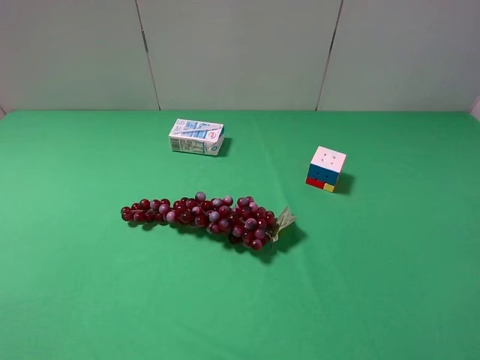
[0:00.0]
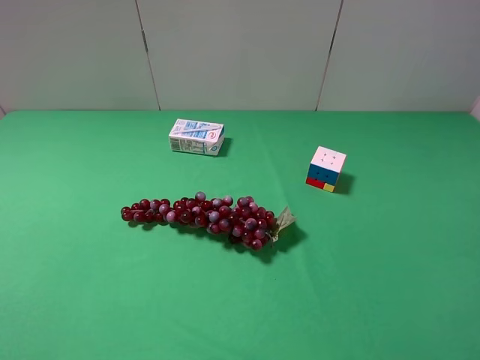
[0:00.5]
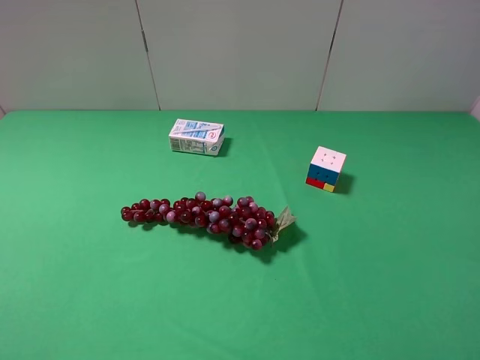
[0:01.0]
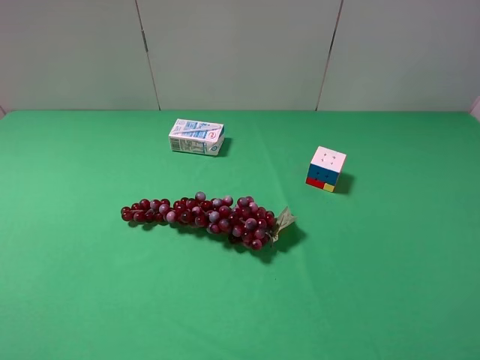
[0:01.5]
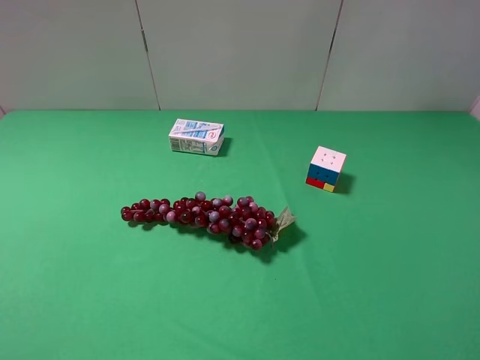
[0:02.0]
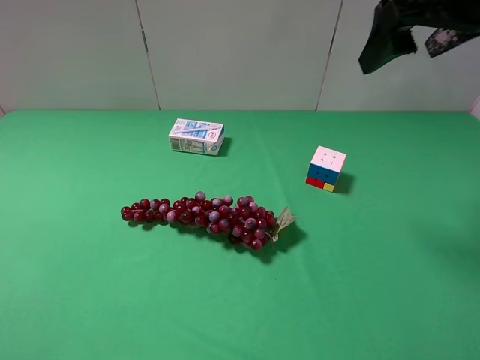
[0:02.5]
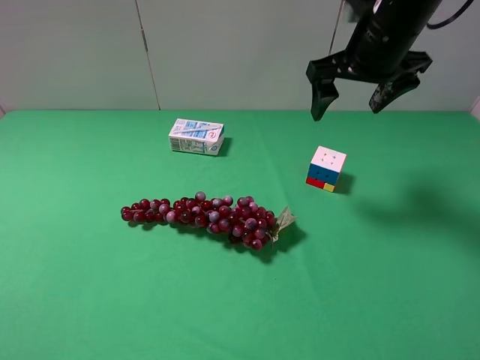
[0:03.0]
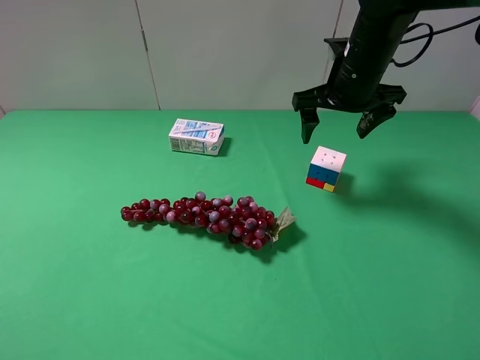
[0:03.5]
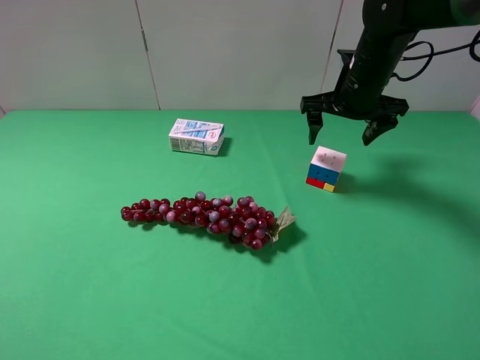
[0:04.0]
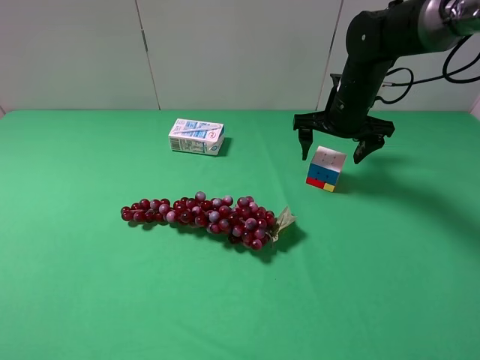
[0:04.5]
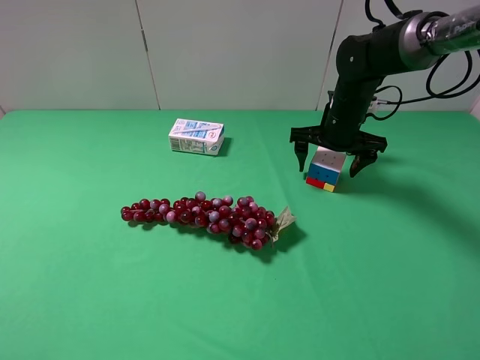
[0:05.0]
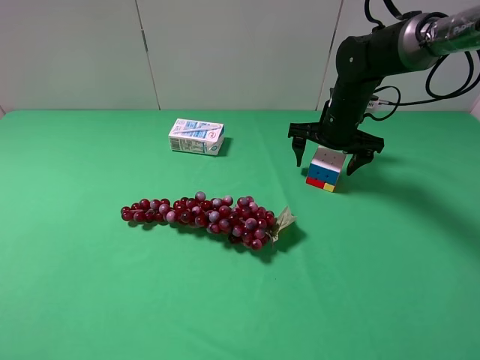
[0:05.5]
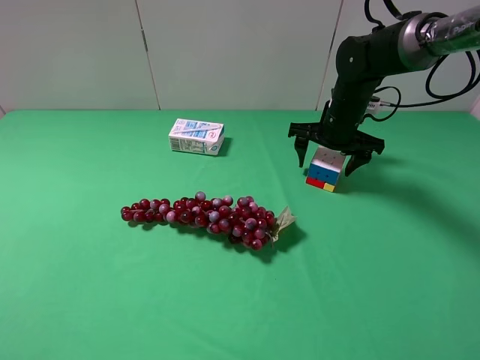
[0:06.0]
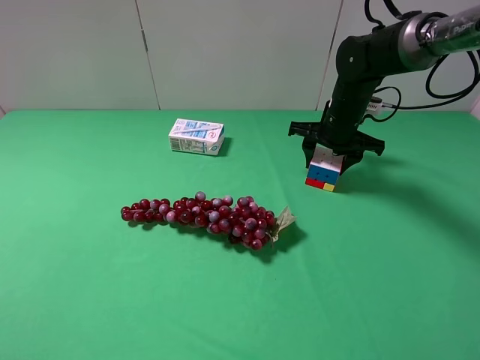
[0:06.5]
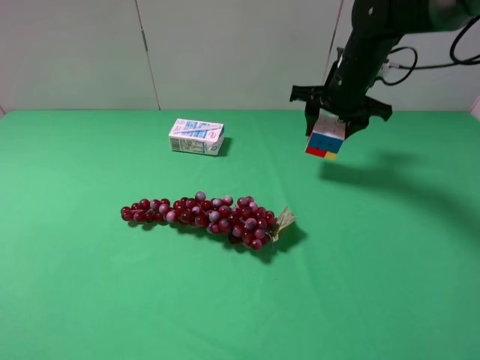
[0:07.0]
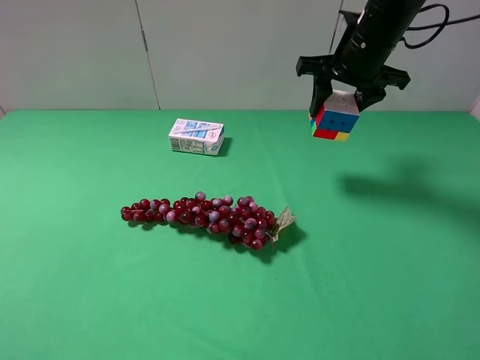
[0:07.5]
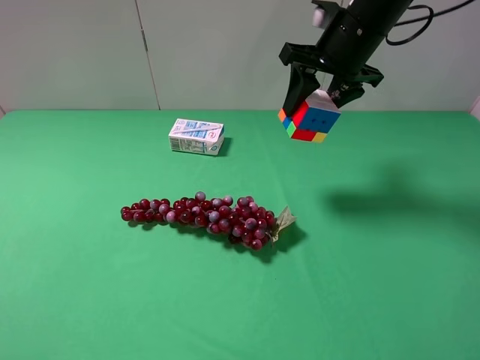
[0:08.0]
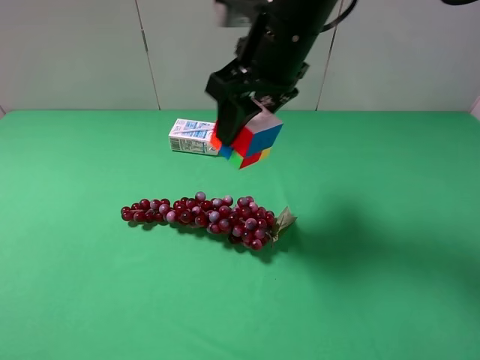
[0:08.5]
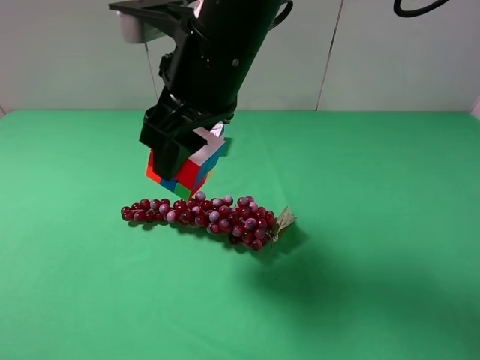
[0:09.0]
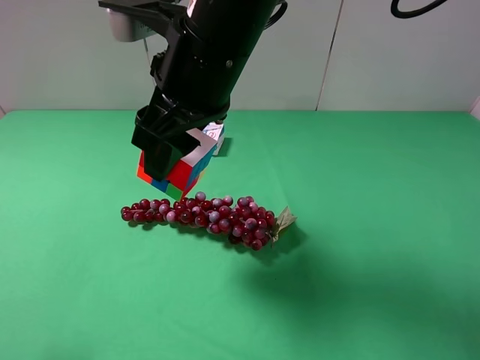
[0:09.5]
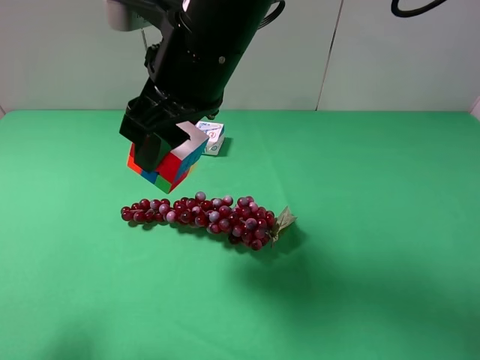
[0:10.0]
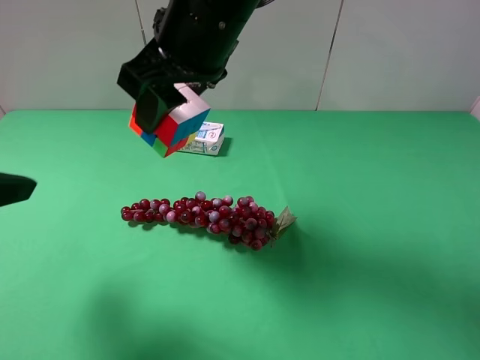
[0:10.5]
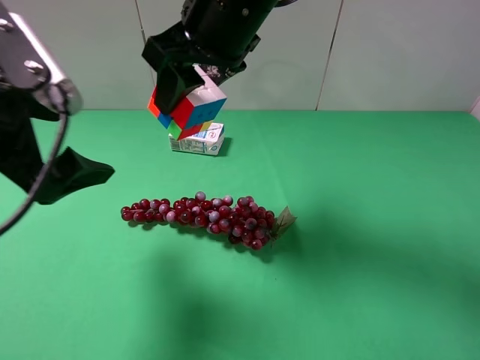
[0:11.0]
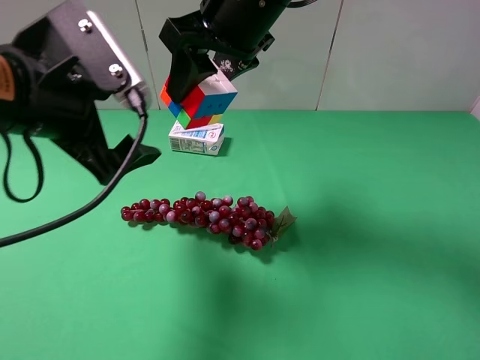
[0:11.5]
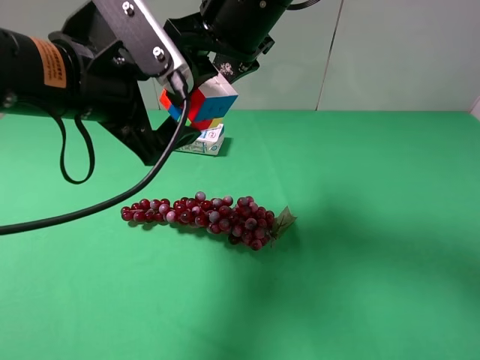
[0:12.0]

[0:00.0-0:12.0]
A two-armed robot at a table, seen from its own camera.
Task of the whole recording: use the right gripper to pick up the item and transfer it from the right gripper to the left gripper.
Step, 0:00.0 to 0:06.0: Use the right gripper to grab the Rubik's Cube on the right side of the table.
0:02.0 to 0:04.0: The right gripper goes approximately 30 cm forward, downward and to the left.
0:04.0 to 0:06.0: The right gripper heads downward, covering approximately 5 cm, and closes up.
0:06.0 to 0:08.0: The right gripper heads upward, covering some 15 cm, and closes.
0:08.0 to 0:10.0: The right gripper goes roughly 20 cm to the left and backward. Meanwhile the left gripper shifts some 10 cm forward.
0:10.0 to 0:12.0: The left gripper travels to the right and forward by some 20 cm, while the right gripper travels forward by roughly 5 cm.

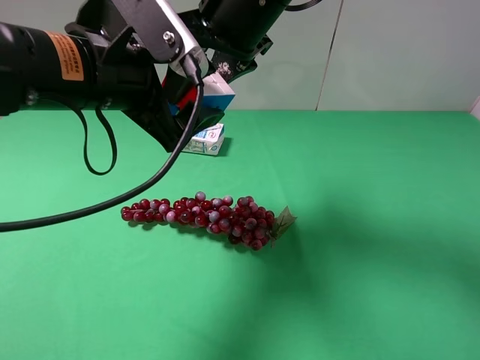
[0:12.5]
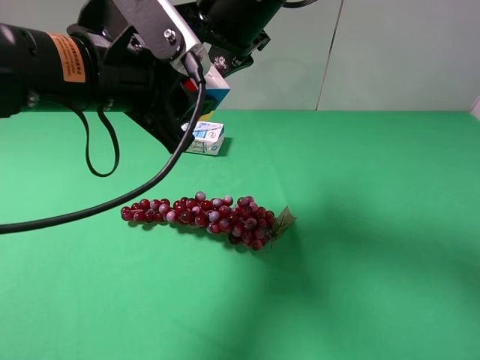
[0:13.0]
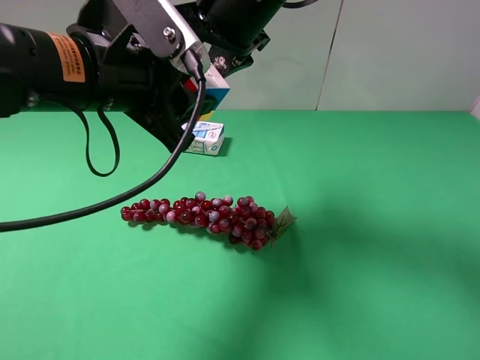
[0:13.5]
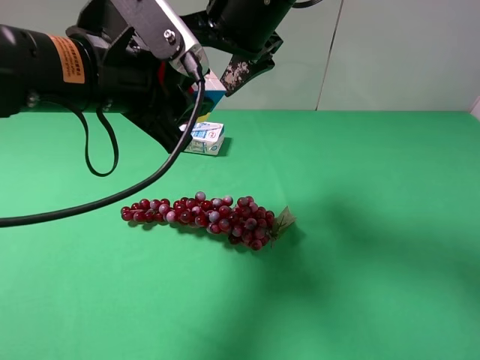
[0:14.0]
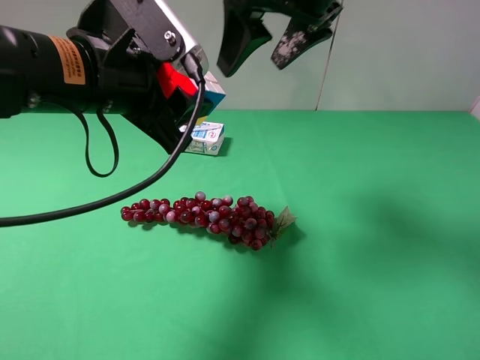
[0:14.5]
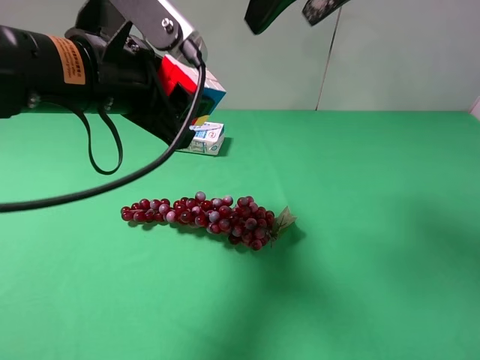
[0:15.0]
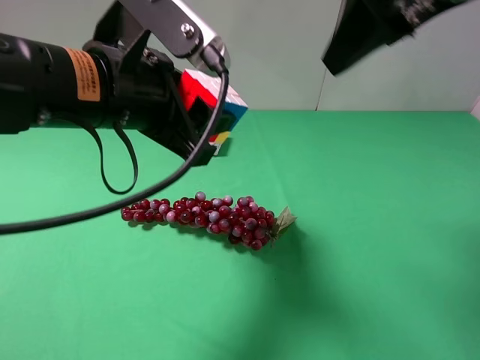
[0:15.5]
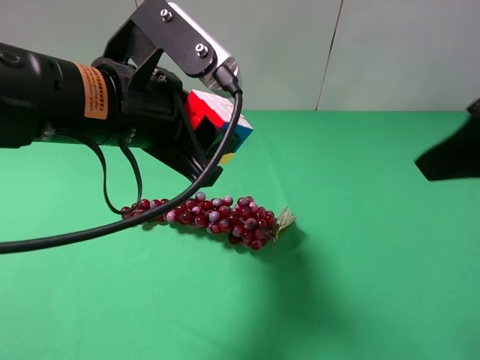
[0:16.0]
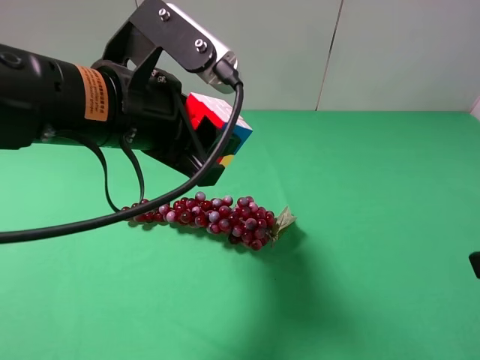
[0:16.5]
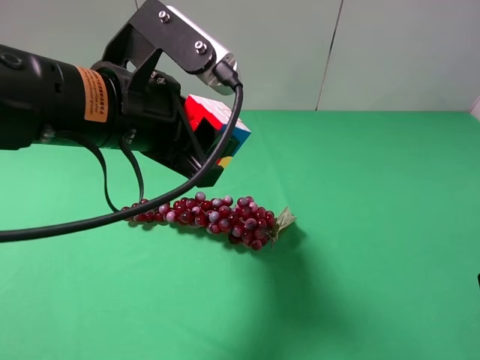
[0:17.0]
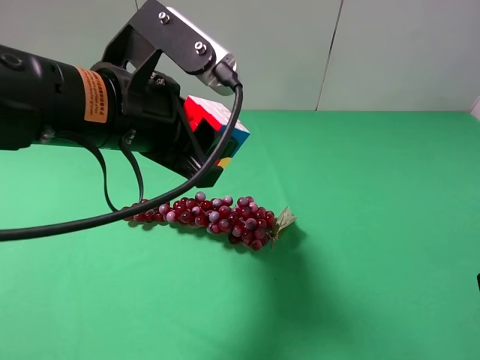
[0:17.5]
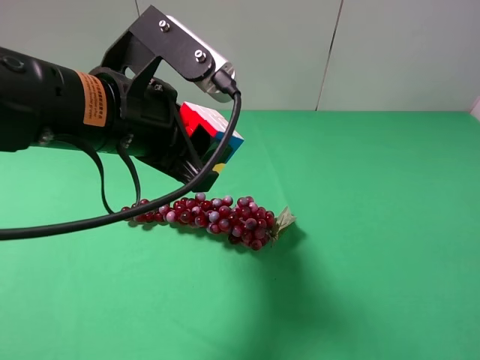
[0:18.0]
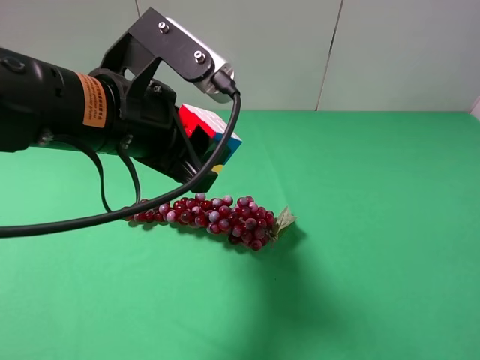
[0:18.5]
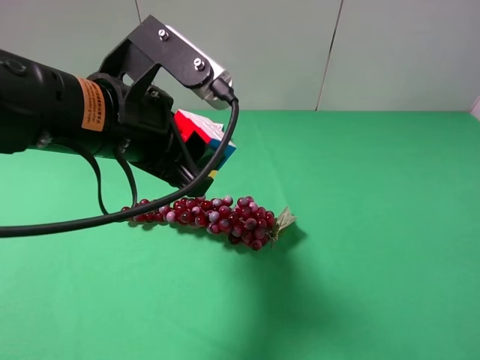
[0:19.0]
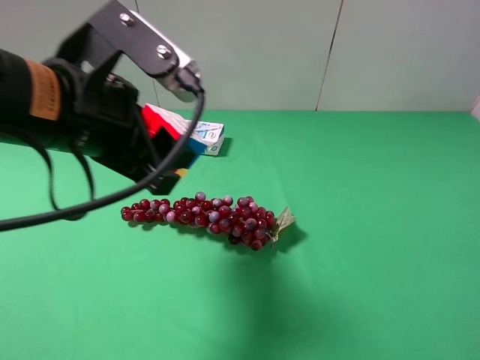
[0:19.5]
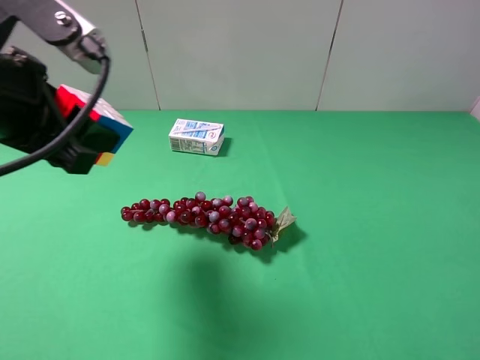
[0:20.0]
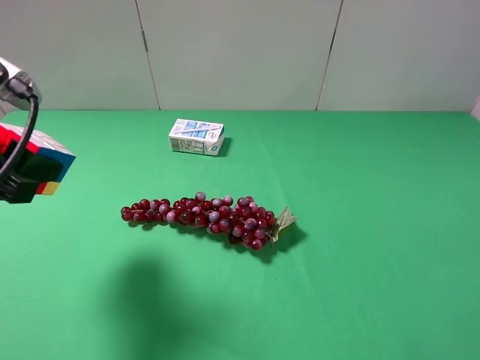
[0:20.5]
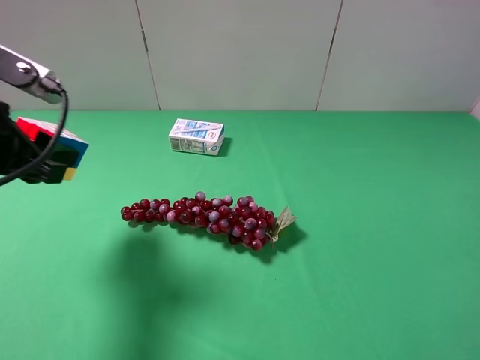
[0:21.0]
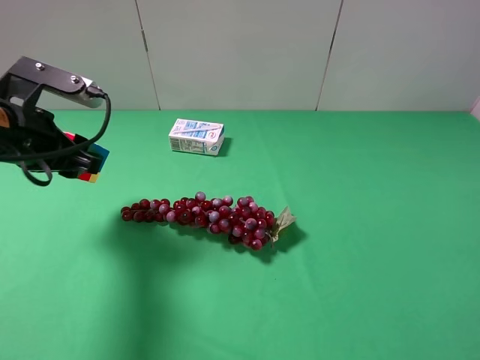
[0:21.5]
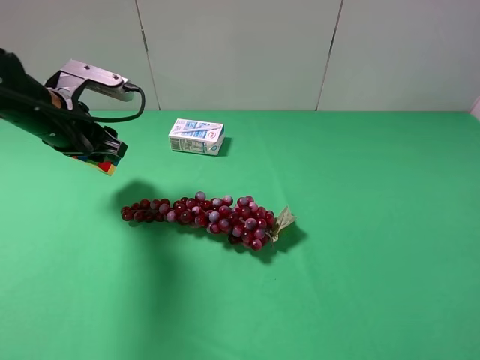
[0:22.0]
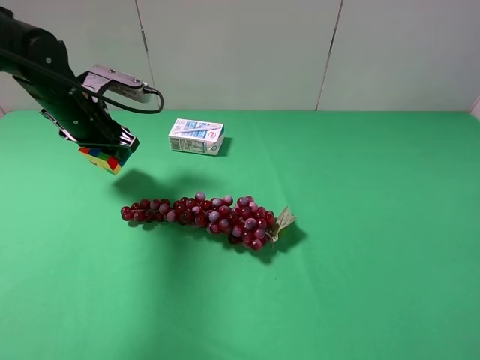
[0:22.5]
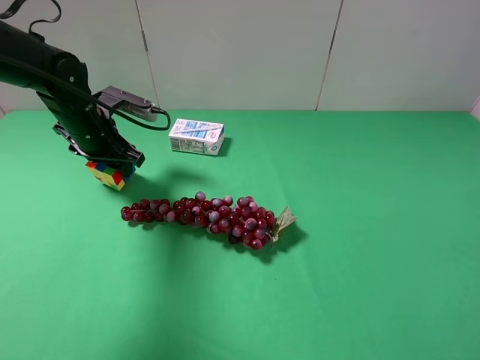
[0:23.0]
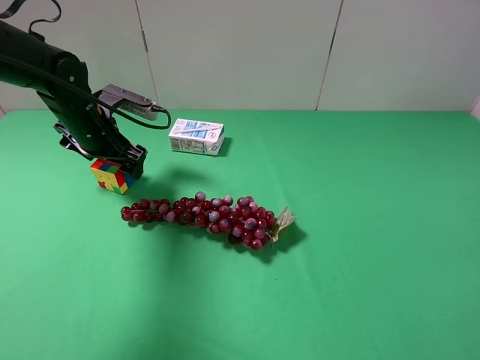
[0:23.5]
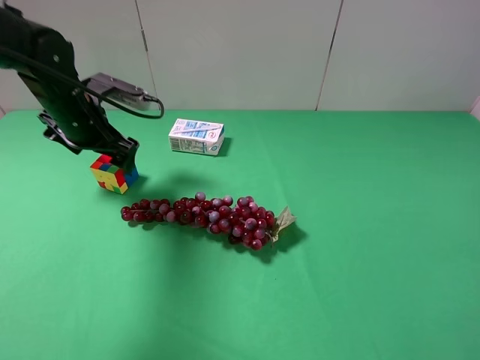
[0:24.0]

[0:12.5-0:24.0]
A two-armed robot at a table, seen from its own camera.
Task of the whole recording: use the right gripper to pick up the item and transfer it from the right gripper to the left gripper.
Step, 0:14.5 to 0:23.5: The left gripper places Rubik's Cube on the left side of the table.
0:12.5 to 0:14.5: The left gripper closes, while the right gripper shifts about 5 cm to the right, and opens.
0:14.5 to 0:16.5: The right gripper shifts about 35 cm backward and to the right.
0:16.5 to 0:18.5: The right gripper shifts by roughly 5 cm.
0:18.5 to 0:20.0: The left gripper is displaced to the left by approximately 10 cm.
0:20.0 to 0:22.0: The left gripper moves forward and downward, some 20 cm.
0:22.0 to 0:24.0: The left gripper opens its fingers.

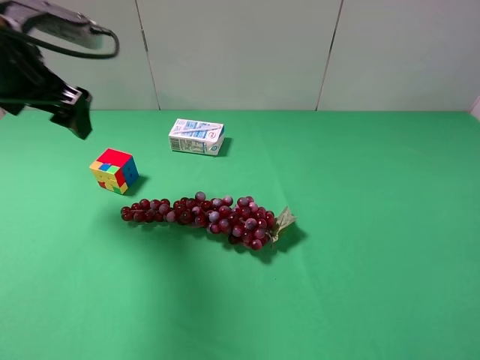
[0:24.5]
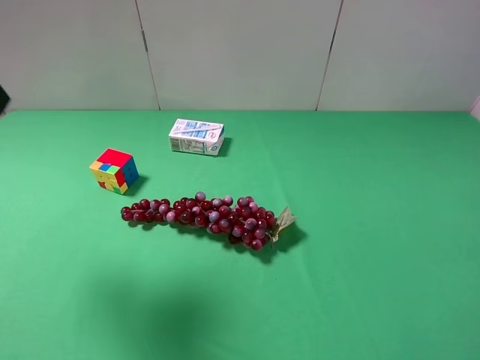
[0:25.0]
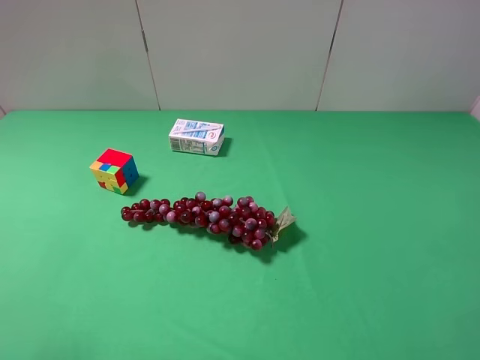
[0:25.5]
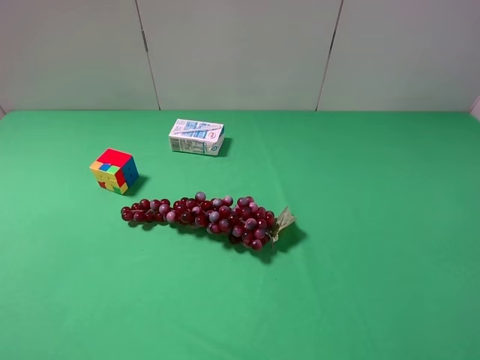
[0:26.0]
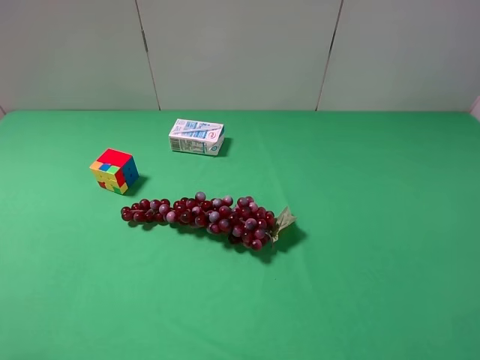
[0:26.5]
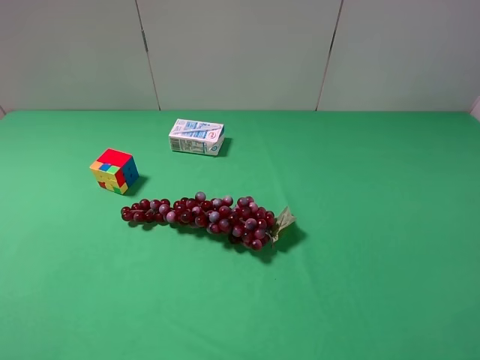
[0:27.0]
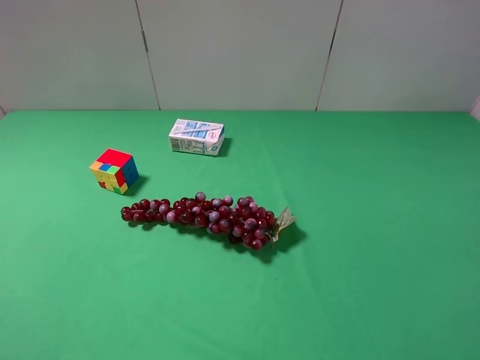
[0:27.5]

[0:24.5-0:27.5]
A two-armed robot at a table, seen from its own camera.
Task of the whole recording: use the right gripper to pick up the item and transfer it from the right gripper to the left gripper.
0:24.5 to 0:26.0: The left gripper goes some 25 cm backward.
